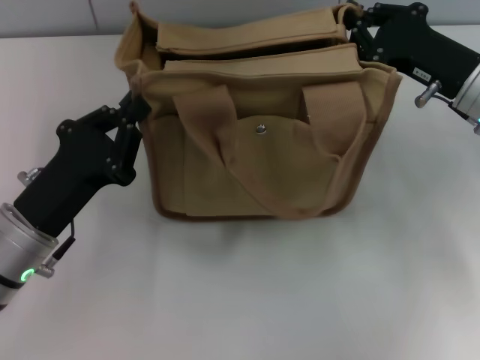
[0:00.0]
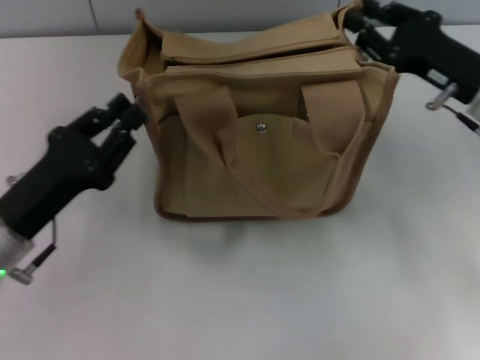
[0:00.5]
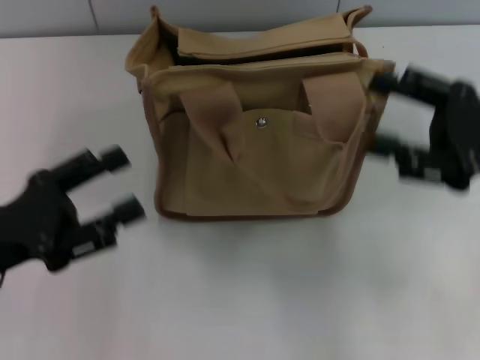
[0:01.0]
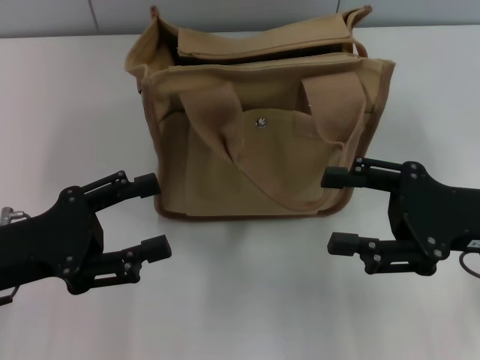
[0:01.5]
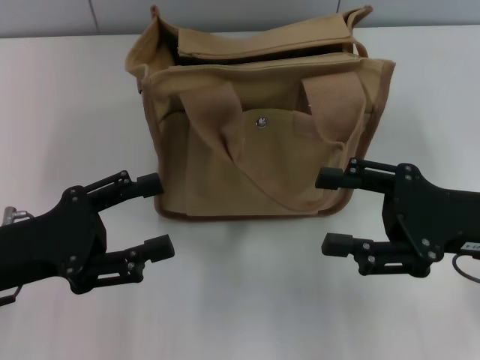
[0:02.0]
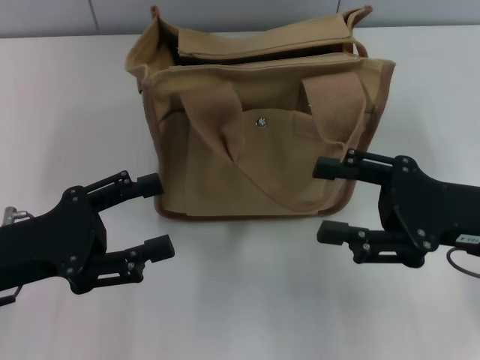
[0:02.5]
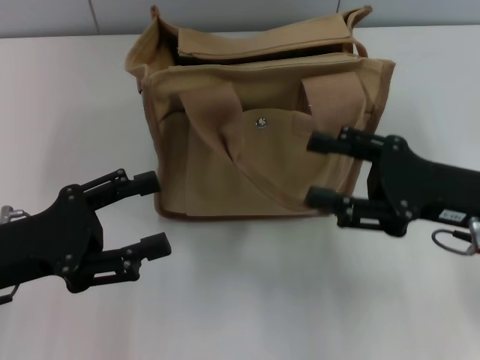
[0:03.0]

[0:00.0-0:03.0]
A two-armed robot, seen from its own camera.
0:00.0 to 0:01.5: The left gripper moves about 5 cm, and opens up, while the right gripper travels backward by roughly 10 cm, and opens up.
0:01.5 to 0:03.0: The grippers move only a little.

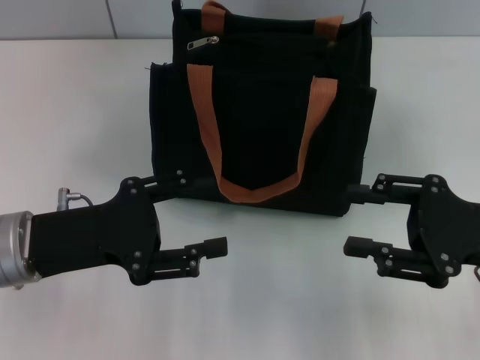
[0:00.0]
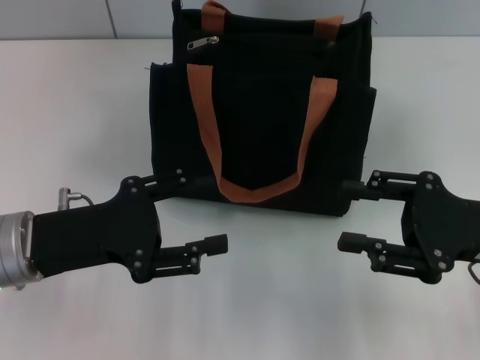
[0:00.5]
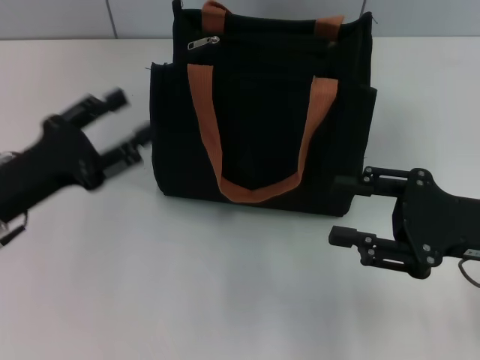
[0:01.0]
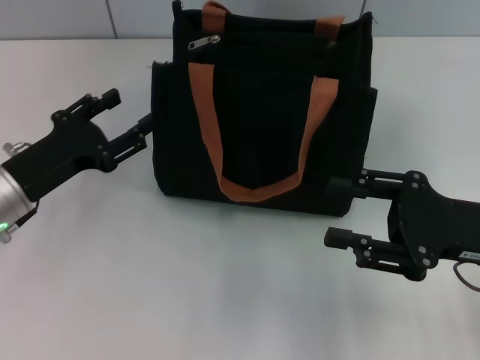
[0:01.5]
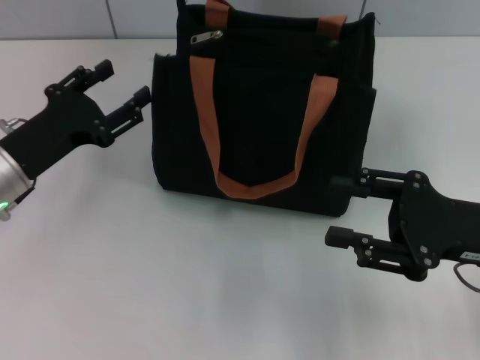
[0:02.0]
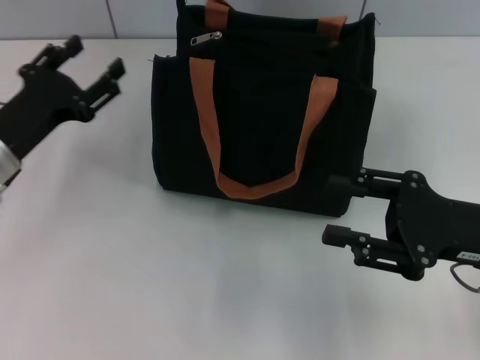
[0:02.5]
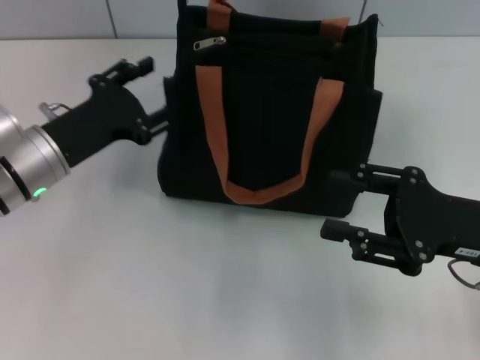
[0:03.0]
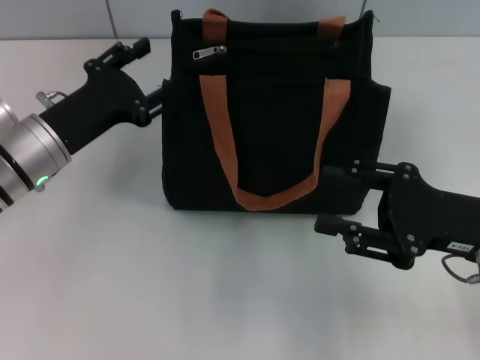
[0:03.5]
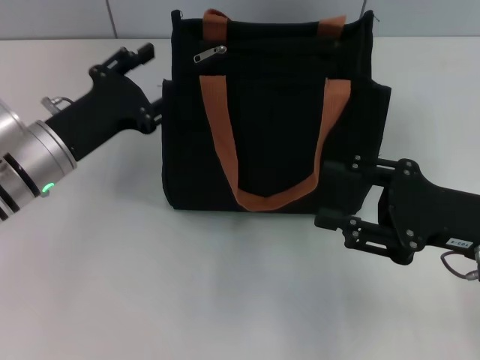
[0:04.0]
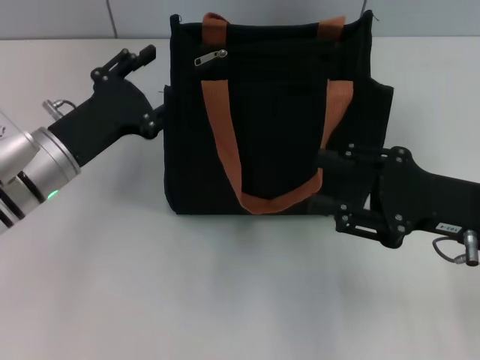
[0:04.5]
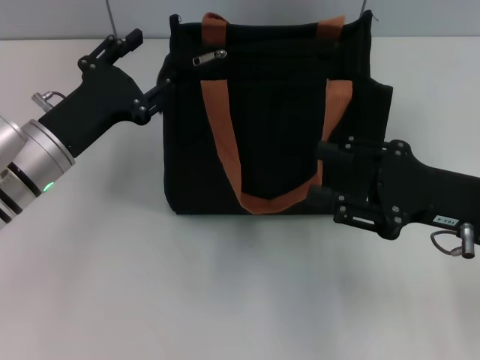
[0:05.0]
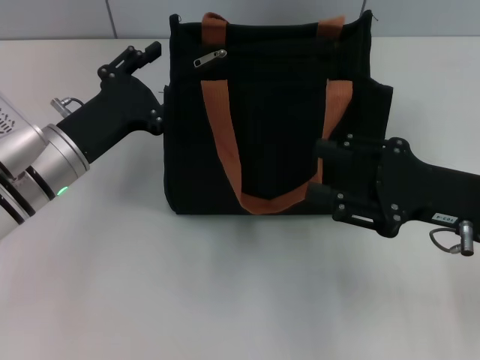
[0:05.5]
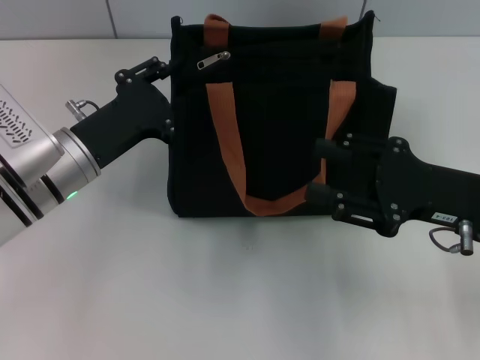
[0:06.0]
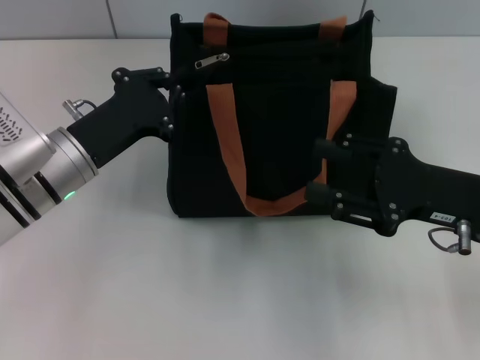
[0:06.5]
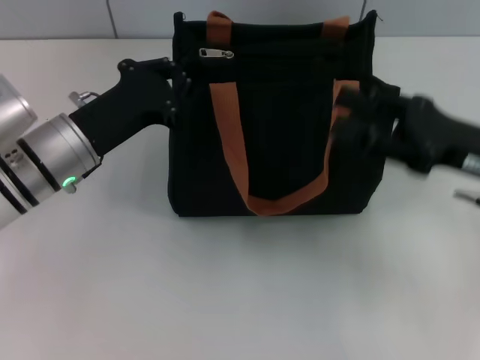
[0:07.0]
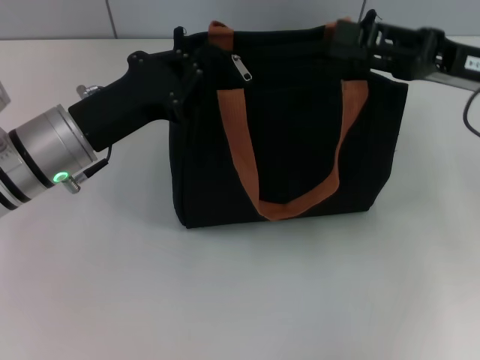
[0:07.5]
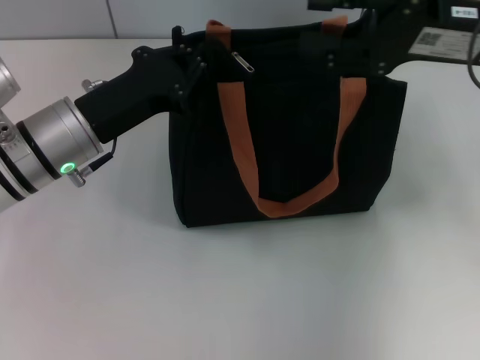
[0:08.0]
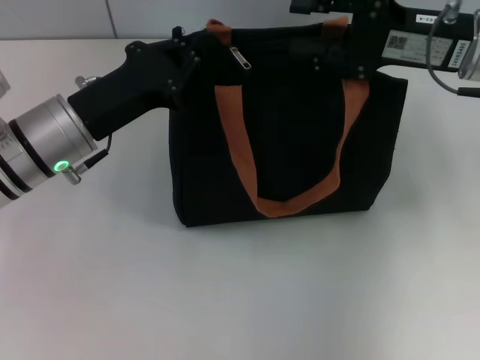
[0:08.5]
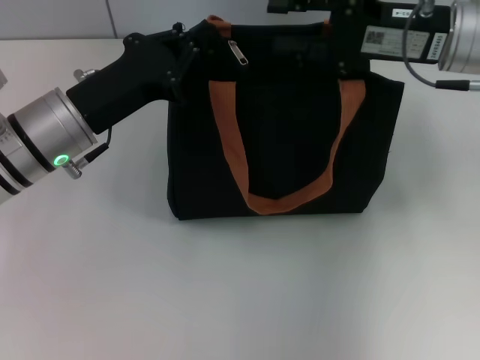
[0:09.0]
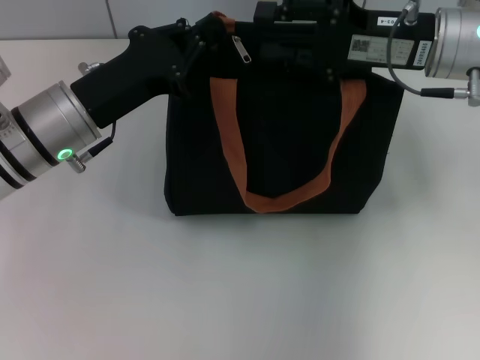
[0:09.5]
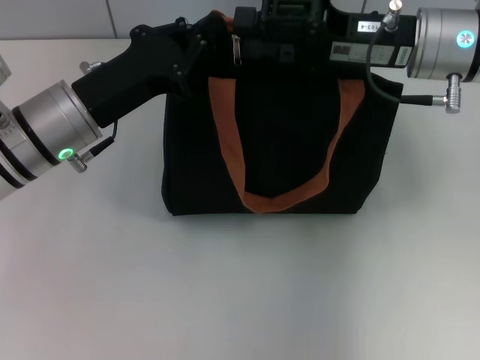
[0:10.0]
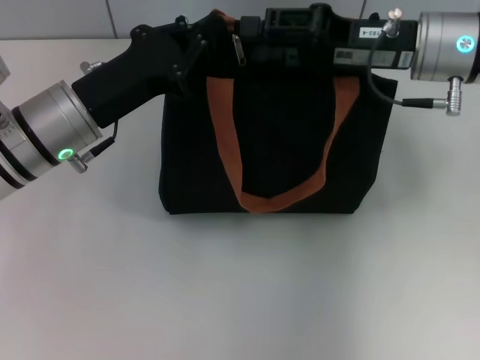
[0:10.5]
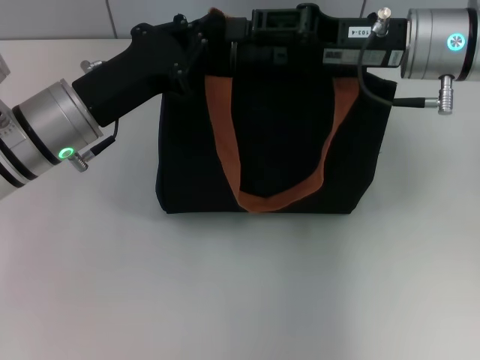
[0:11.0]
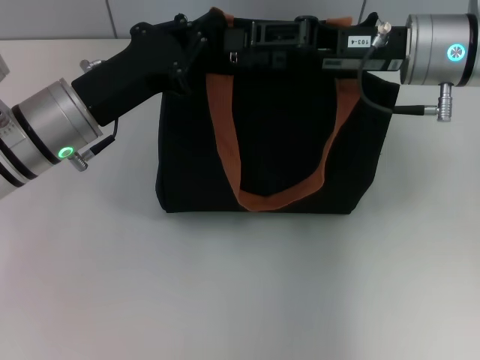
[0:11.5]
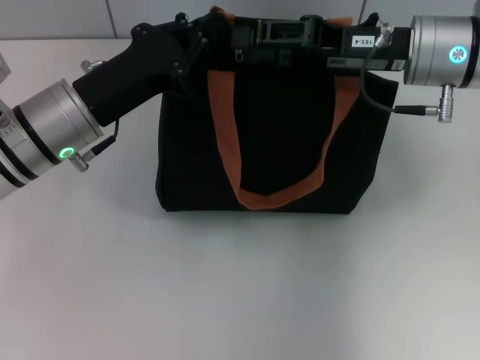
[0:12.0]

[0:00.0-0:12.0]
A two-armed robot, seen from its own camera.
0:00.0 to 0:02.0: The left gripper heads forward, covering roughly 5 cm.
0:02.0 to 0:04.0: The grippers make only small movements.
0:04.0 to 0:06.0: There are only small adjustments of the grippers.
0:06.0 to 0:08.0: The right gripper shifts approximately 15 cm upward and forward. The left gripper closes its fingers.
0:08.0 to 0:10.0: The right gripper heads to the left, covering approximately 5 cm.
0:10.0 to 0:12.0: The grippers move only a little.

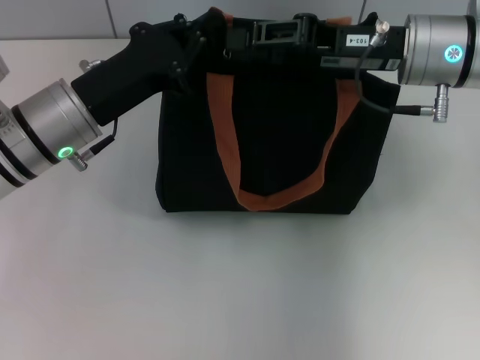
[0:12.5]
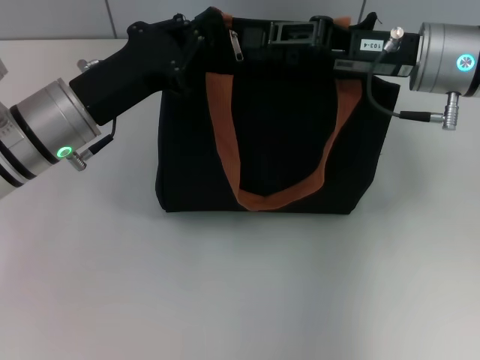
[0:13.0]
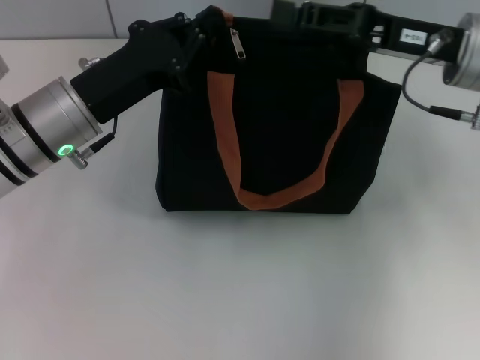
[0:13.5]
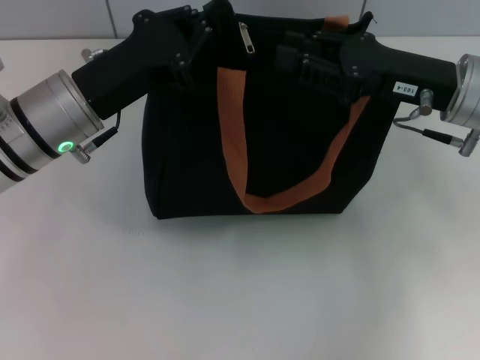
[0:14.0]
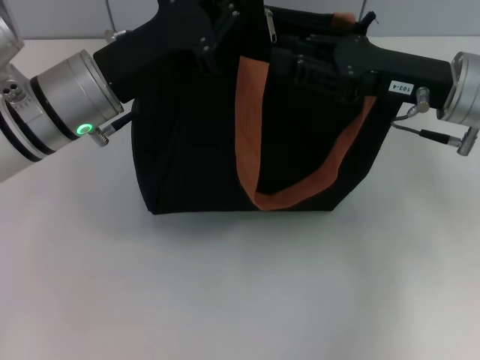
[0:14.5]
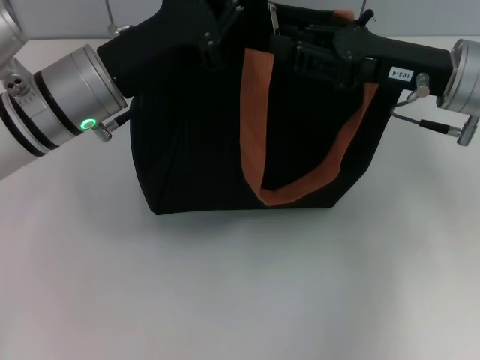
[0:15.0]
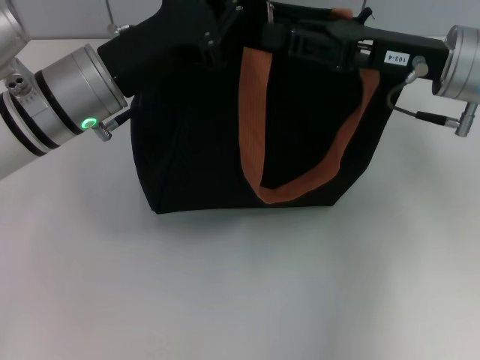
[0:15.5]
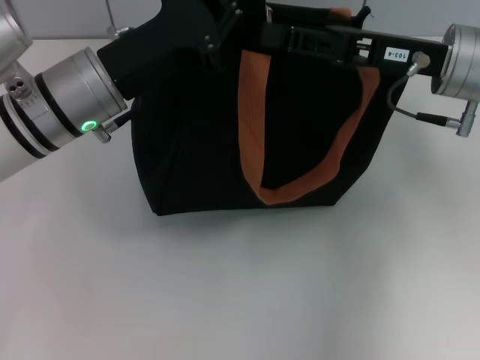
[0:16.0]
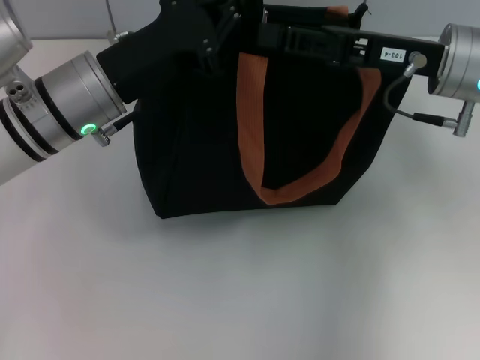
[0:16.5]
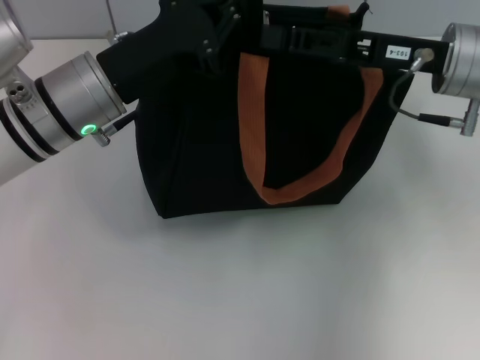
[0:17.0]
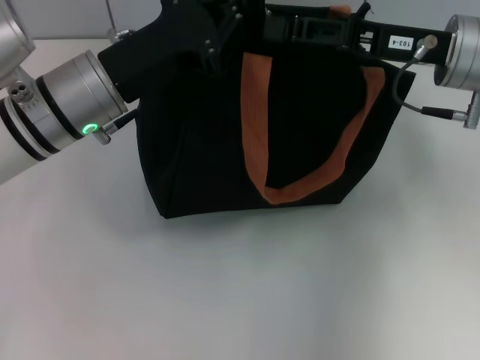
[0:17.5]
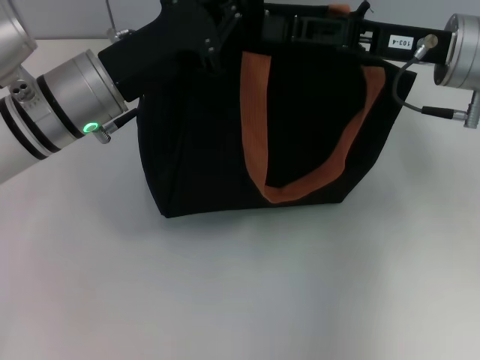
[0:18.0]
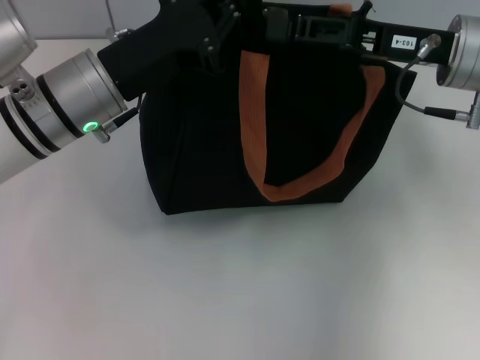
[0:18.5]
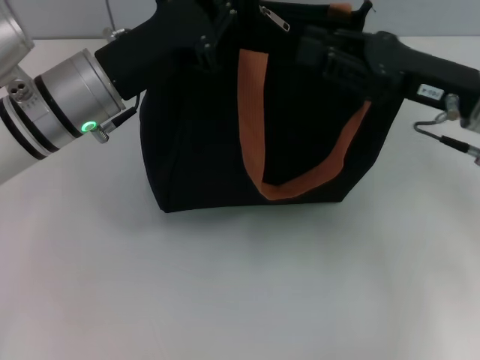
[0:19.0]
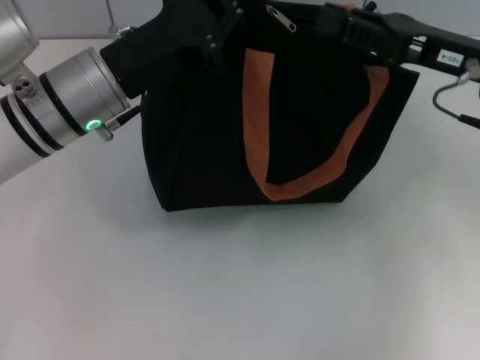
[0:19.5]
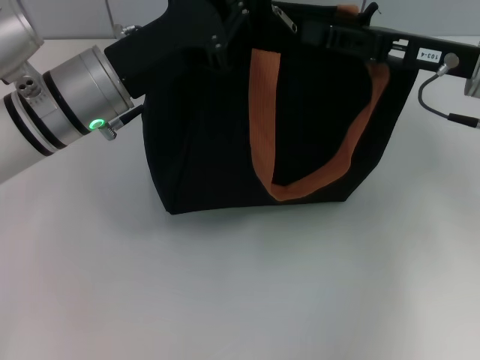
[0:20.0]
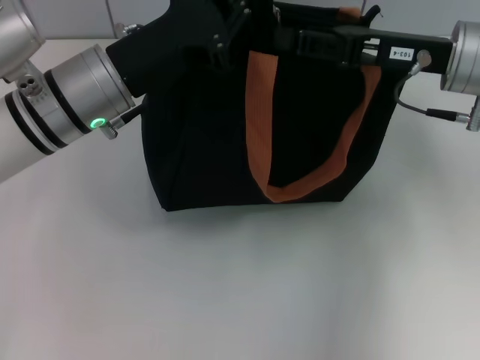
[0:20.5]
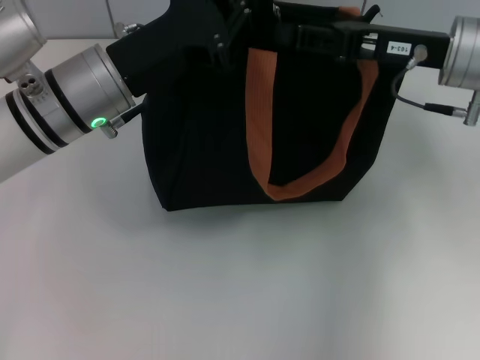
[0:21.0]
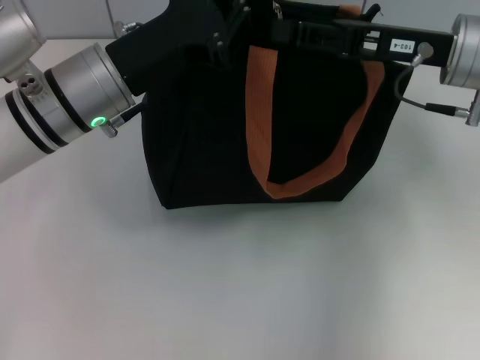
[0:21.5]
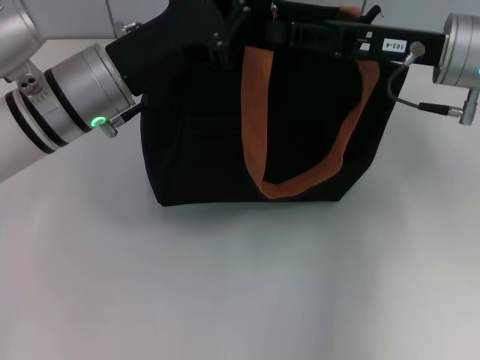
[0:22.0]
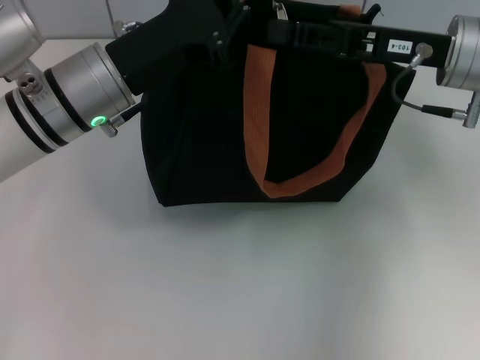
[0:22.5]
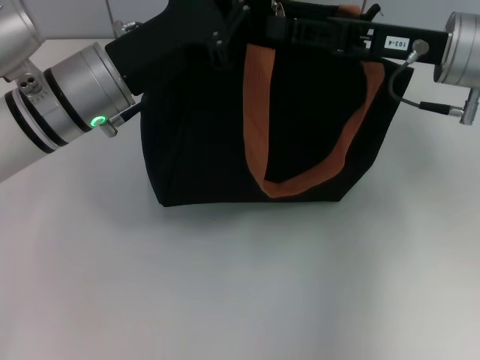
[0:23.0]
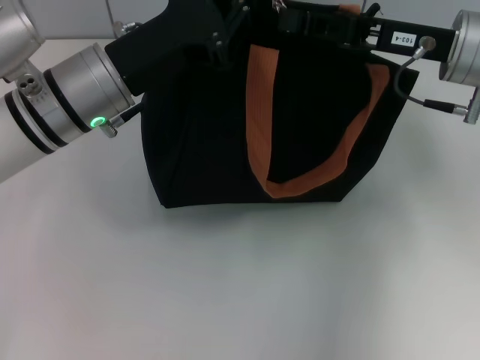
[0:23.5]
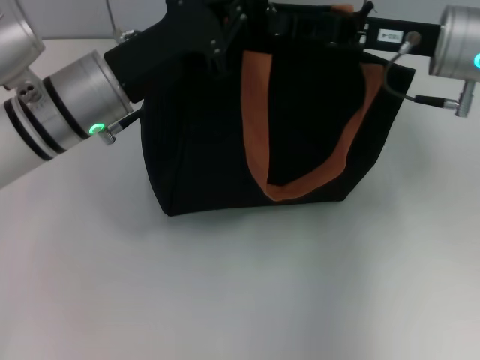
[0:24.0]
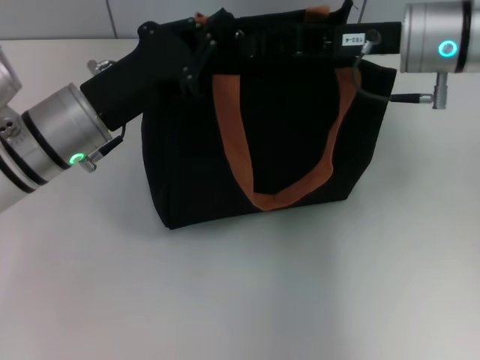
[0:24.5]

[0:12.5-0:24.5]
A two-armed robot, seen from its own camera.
0:12.5 to 0:14.5: The right gripper shifts by roughly 5 cm.
0:14.5 to 0:16.5: The grippers move only a little.
0:16.5 to 0:18.5: The grippers make only small movements.
0:20.5 to 0:22.5: Both grippers stay about where they are.
